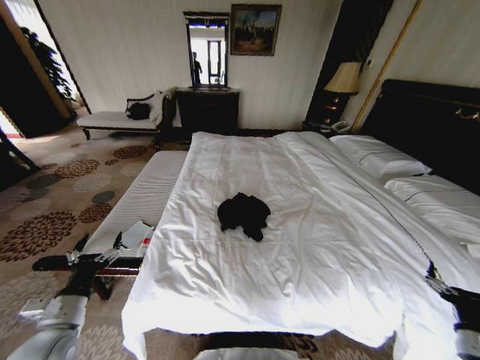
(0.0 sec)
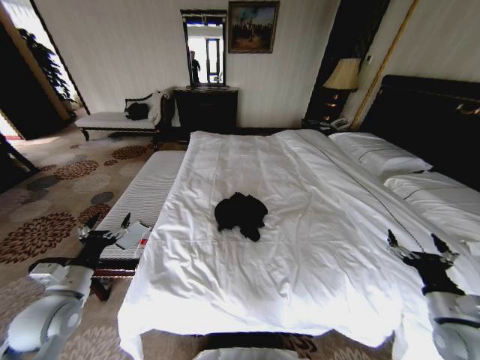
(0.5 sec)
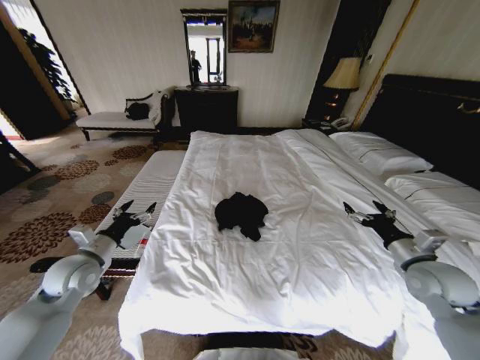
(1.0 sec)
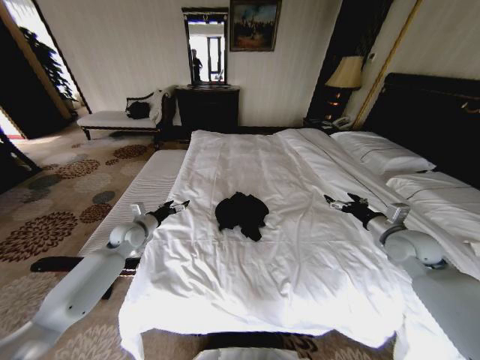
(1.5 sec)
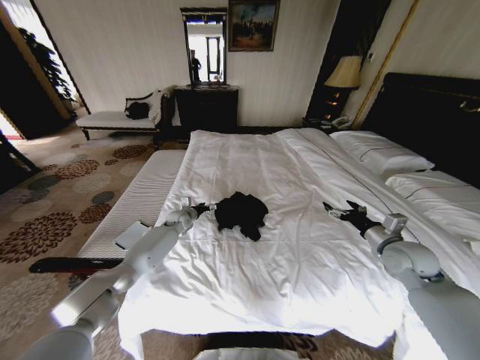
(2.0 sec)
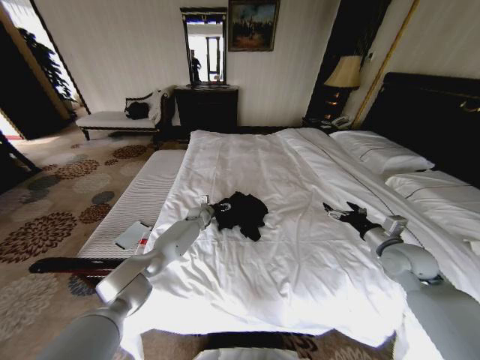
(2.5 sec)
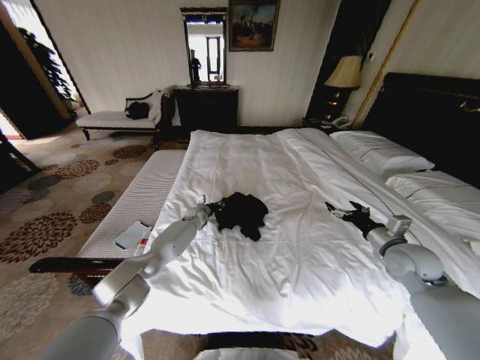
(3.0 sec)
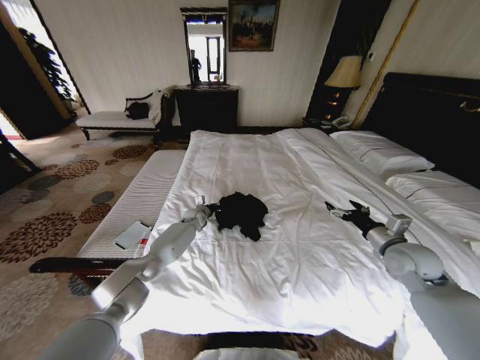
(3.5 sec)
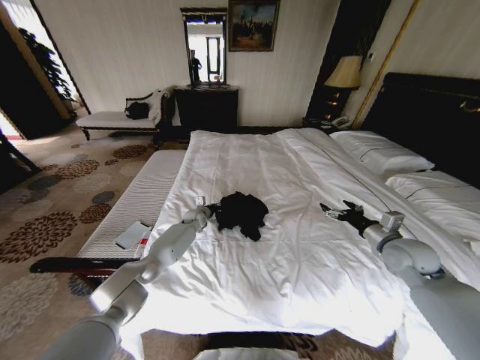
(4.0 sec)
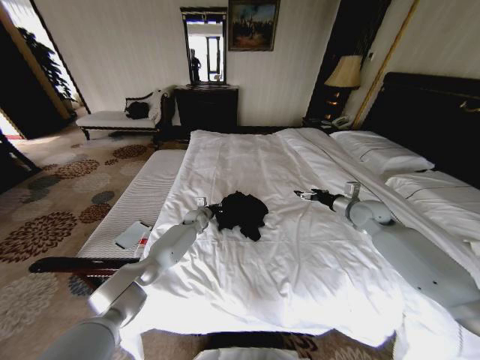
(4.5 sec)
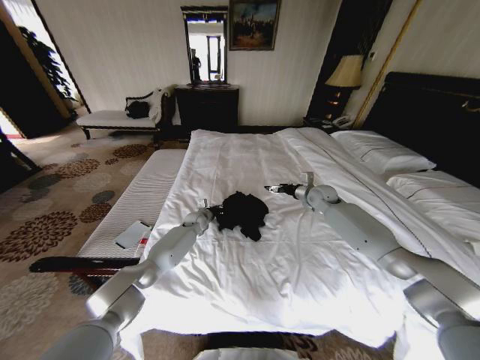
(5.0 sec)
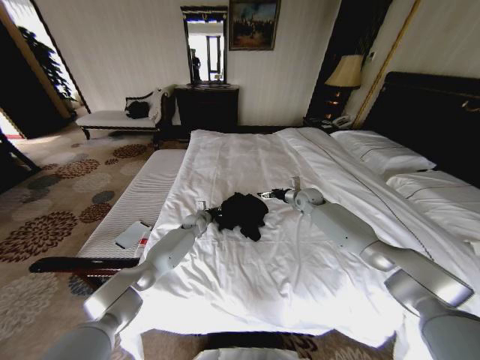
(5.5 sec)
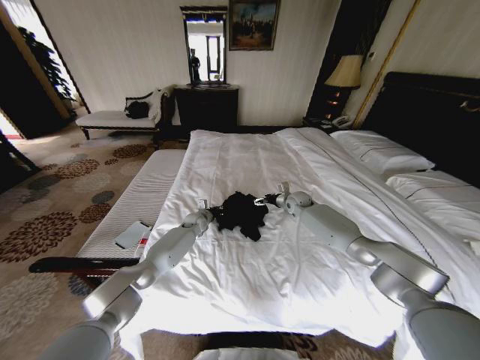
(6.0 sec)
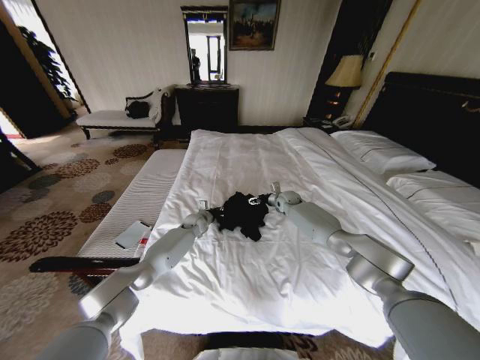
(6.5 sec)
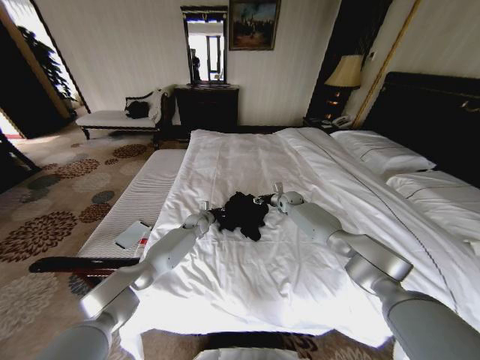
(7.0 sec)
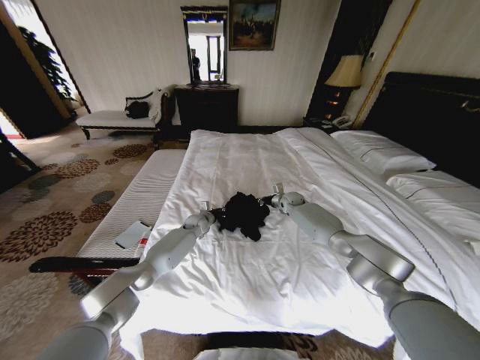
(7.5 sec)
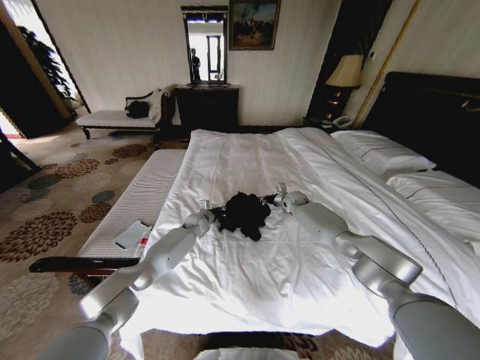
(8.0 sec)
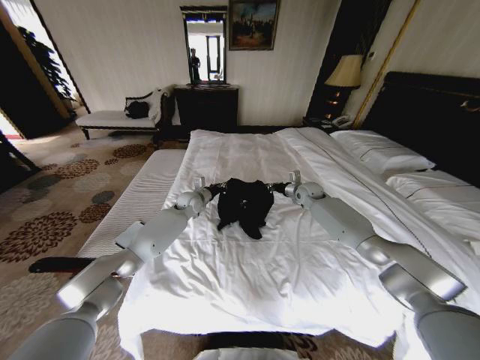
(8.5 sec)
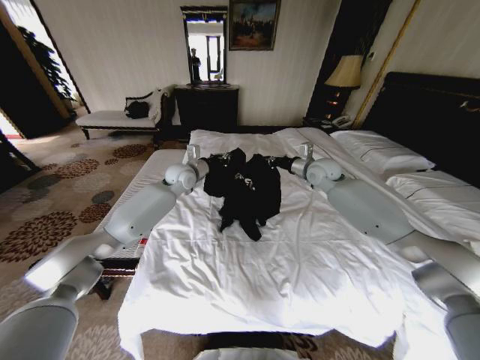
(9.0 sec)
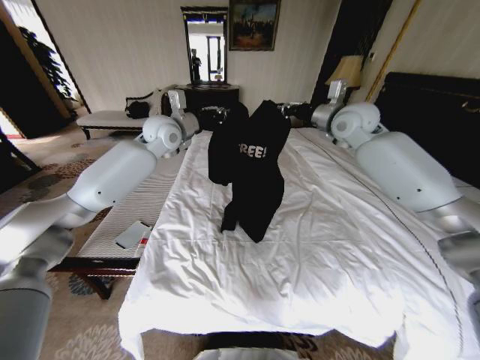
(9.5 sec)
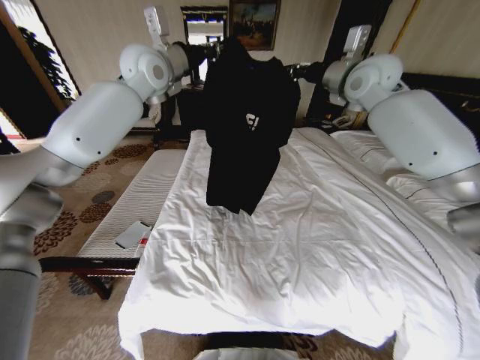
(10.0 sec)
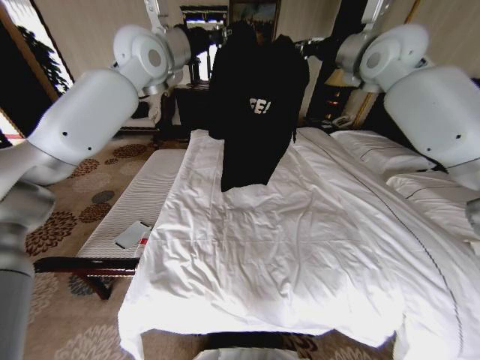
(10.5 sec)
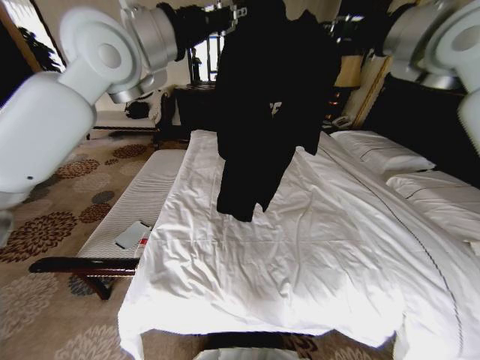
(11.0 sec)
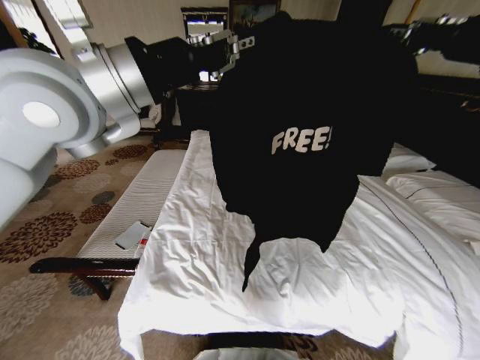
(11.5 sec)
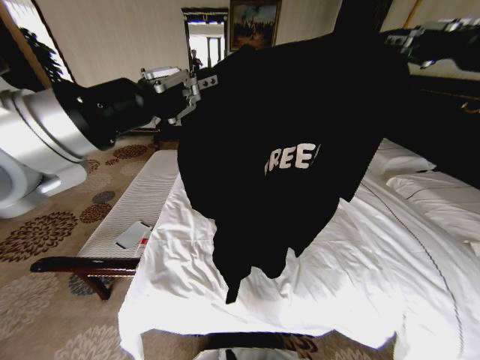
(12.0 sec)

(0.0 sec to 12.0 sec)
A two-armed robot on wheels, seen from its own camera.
Task of the whole recording: Fold the clothes on the bed.
0.0 sec - 2.0 sec: The right gripper travels forward and upward by about 25 cm. Meanwhile the left gripper moves forward and to the right, roughly 40 cm.
2.0 sec - 4.0 sec: The left gripper shifts some 5 cm to the right, and closes up.
4.0 sec - 6.0 sec: The right gripper travels forward and to the left by roughly 30 cm.
6.0 sec - 8.0 sec: The right gripper closes up.
8.0 sec - 10.0 sec: The grippers both shift upward by roughly 50 cm.
10.0 sec - 12.0 sec: The two grippers go approximately 35 cm backward.

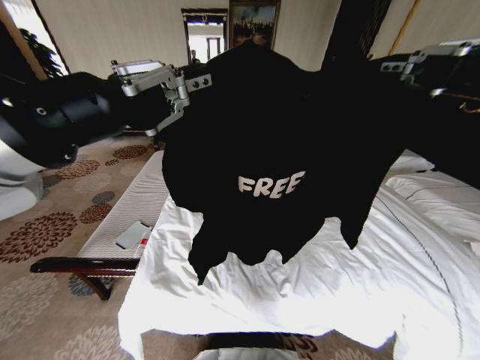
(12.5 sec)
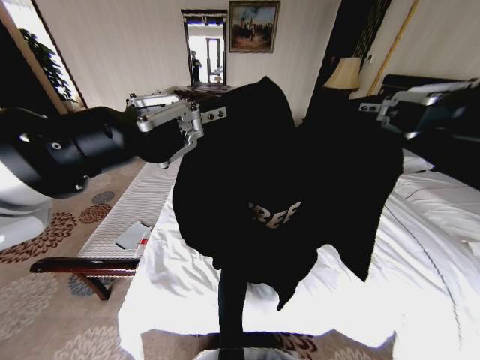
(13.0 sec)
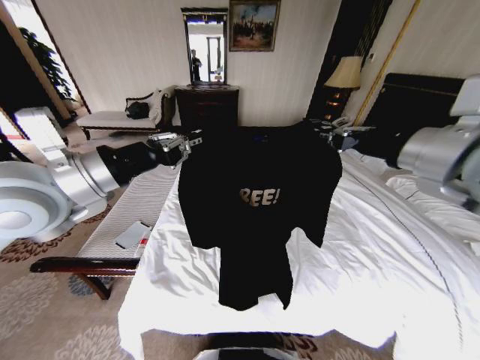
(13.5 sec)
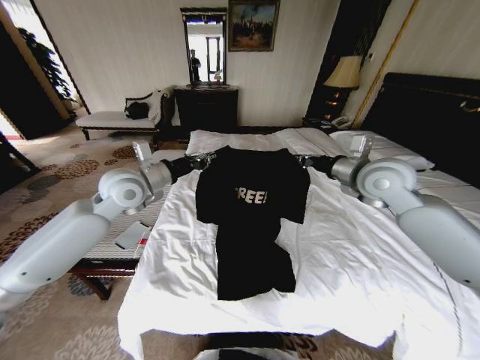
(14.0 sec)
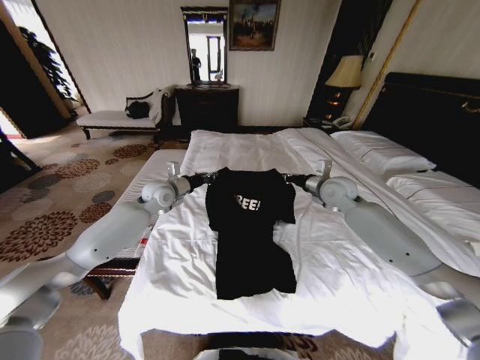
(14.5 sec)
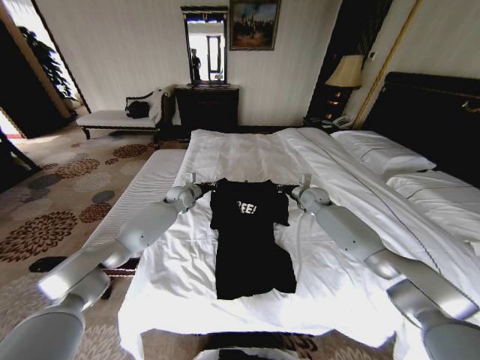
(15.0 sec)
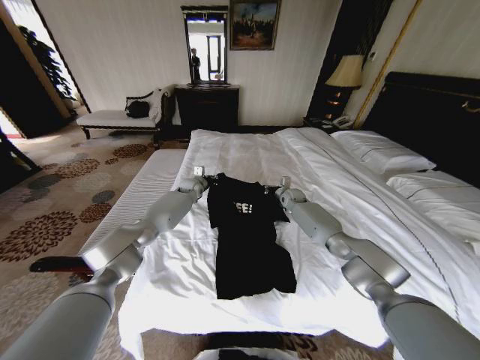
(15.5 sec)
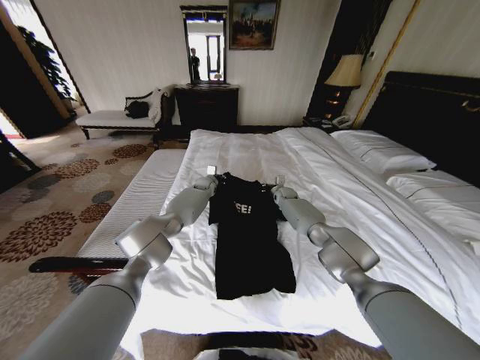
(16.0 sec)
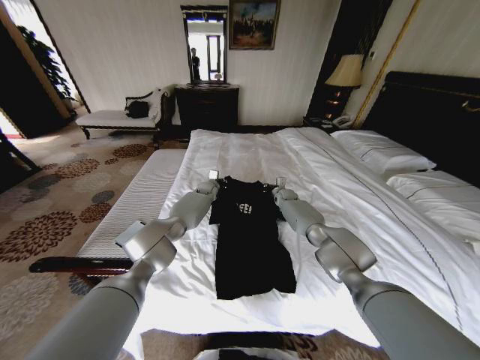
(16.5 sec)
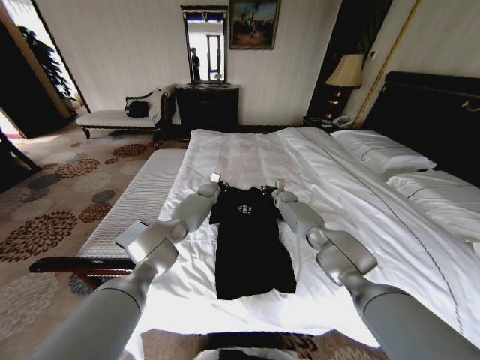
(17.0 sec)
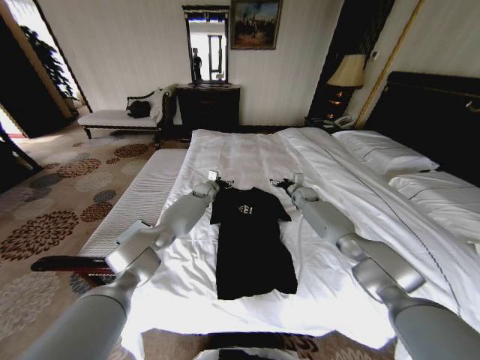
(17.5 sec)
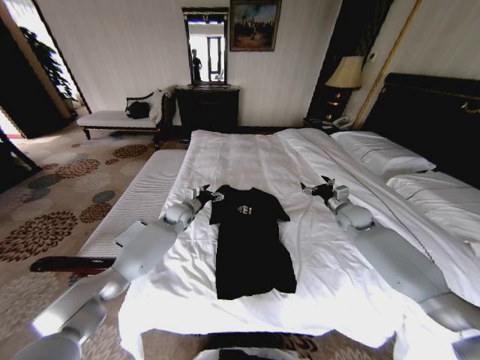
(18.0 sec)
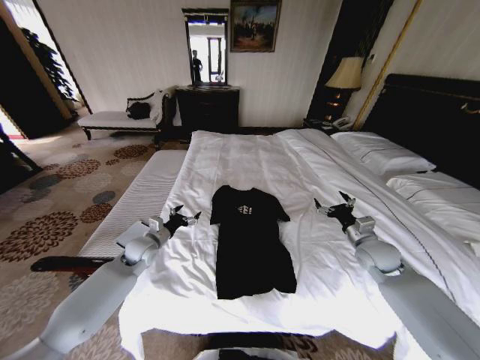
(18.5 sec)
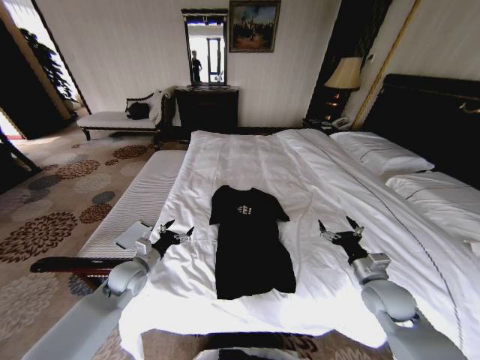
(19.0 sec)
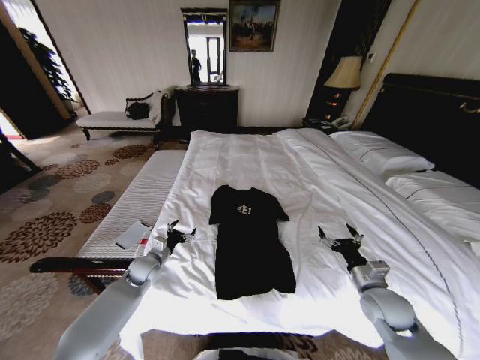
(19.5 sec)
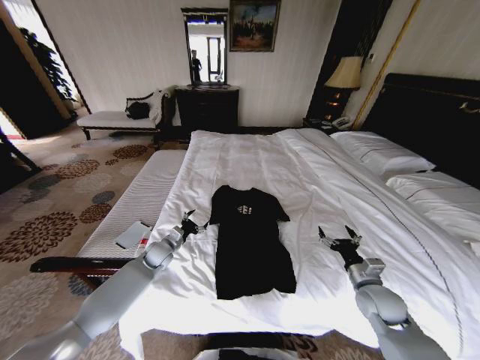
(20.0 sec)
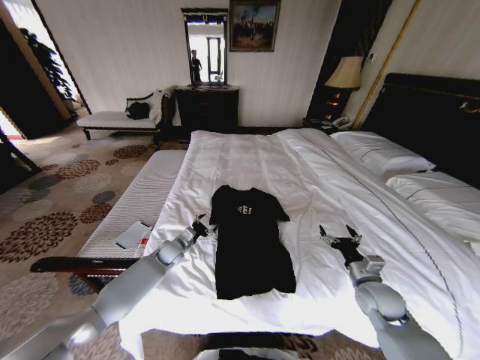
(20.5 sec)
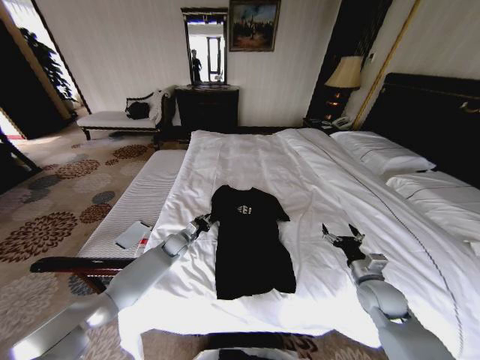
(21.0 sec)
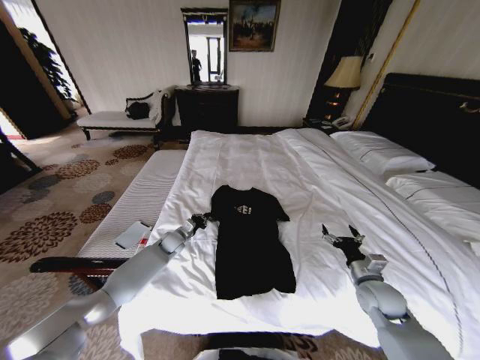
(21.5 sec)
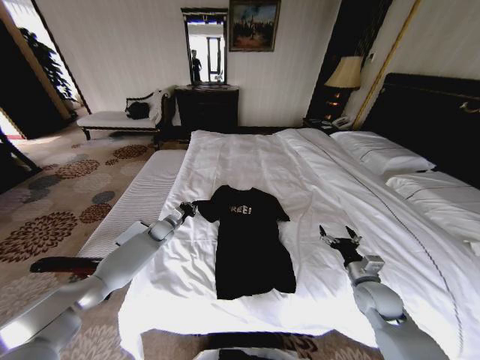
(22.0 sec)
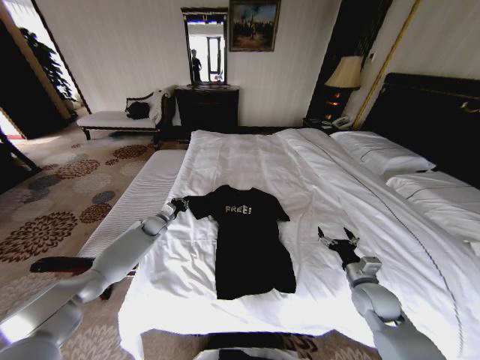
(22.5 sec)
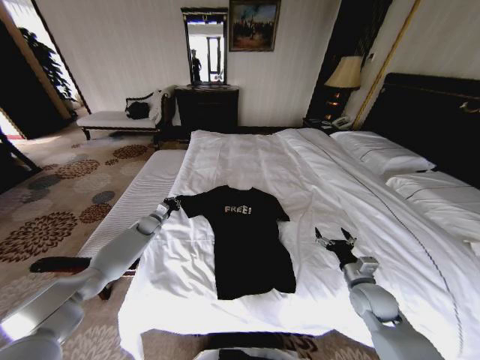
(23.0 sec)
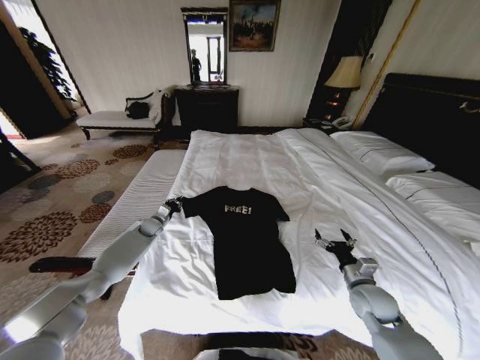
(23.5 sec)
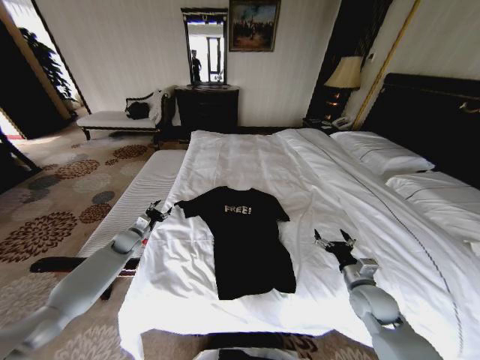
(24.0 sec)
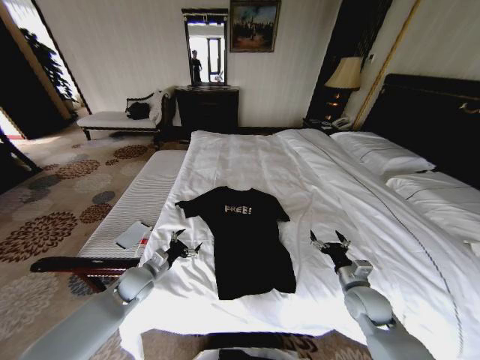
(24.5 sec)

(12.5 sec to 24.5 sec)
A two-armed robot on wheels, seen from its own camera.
Task of the whole recording: Fold the clothes on the bed.
12.5 sec - 14.5 sec: The grippers both shift forward and downward by roughly 40 cm.
14.5 sec - 16.5 sec: The right gripper shifts some 25 cm downward and forward, while the left gripper moves forward, to the right and downward, roughly 25 cm.
16.5 sec - 18.5 sec: The right gripper is displaced backward and to the right by approximately 35 cm, and opens, while the left gripper travels backward and to the left by about 35 cm, and opens up.
18.5 sec - 20.5 sec: The right gripper moves backward and downward, about 10 cm, while the left gripper goes approximately 10 cm downward and to the right.
20.5 sec - 22.5 sec: The left gripper goes about 15 cm forward and to the left, and closes.
22.5 sec - 24.5 sec: The left gripper travels backward by about 25 cm, and opens.

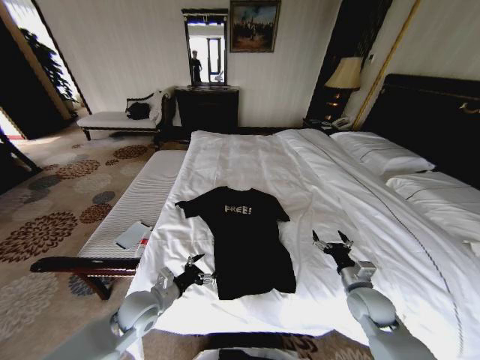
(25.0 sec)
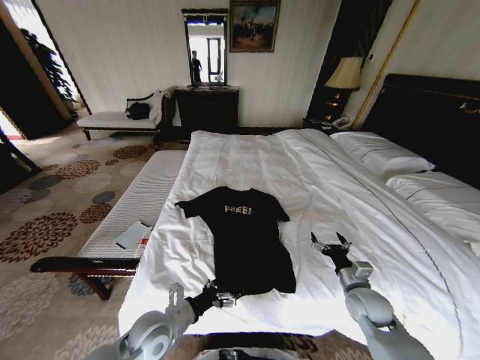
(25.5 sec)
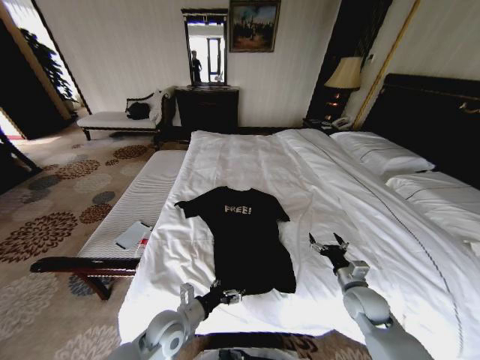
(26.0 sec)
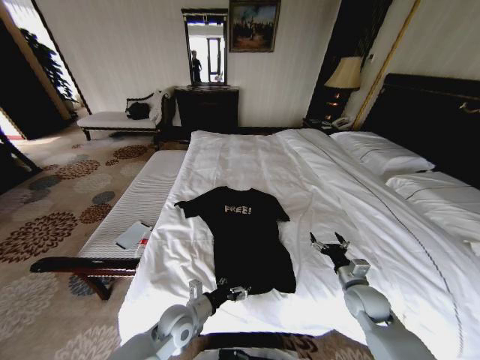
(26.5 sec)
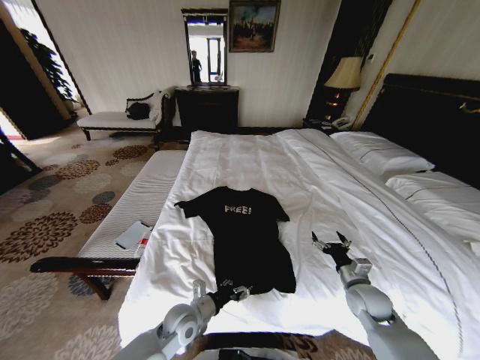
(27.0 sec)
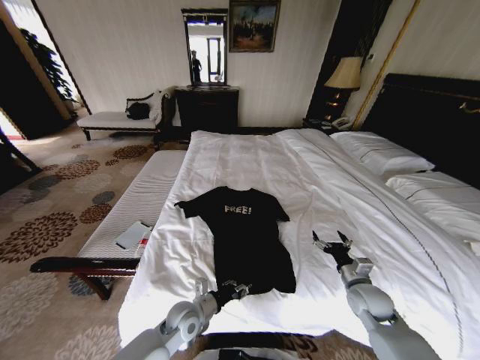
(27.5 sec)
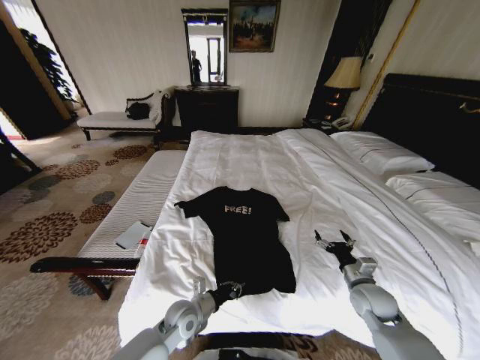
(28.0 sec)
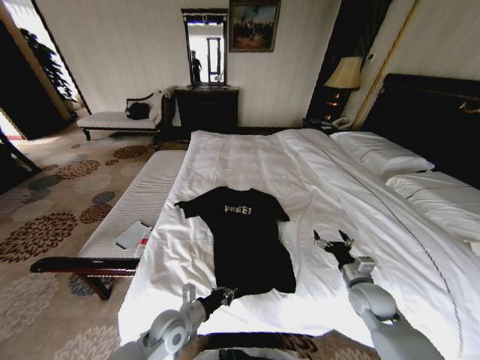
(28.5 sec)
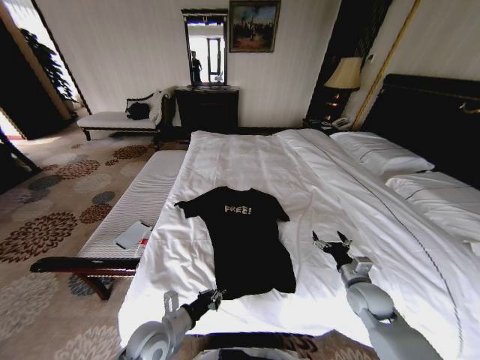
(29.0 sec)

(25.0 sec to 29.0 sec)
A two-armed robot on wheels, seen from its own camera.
Task of the whole recording: Fold the clothes on the bed.
25.0 sec - 27.0 sec: The left gripper shifts roughly 10 cm to the right and downward.
27.0 sec - 29.0 sec: The left gripper goes roughly 5 cm to the left, and closes up.
